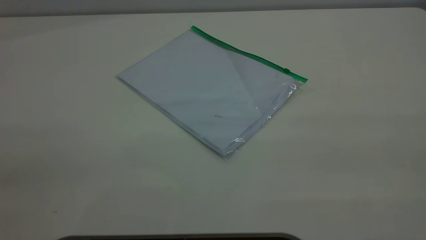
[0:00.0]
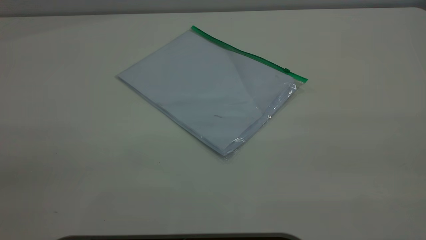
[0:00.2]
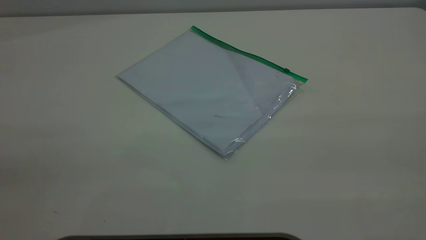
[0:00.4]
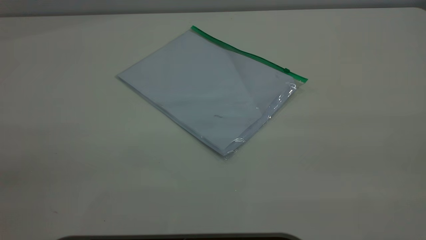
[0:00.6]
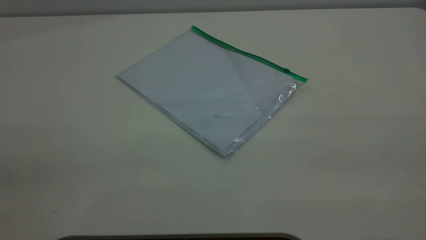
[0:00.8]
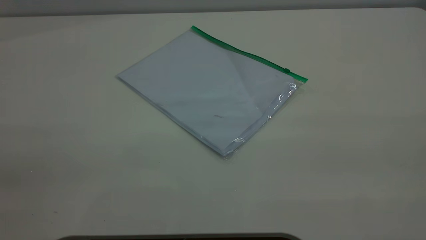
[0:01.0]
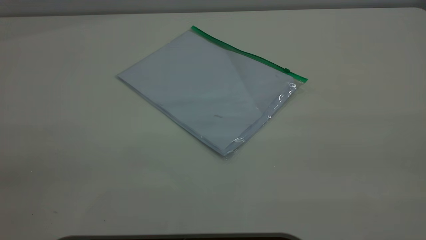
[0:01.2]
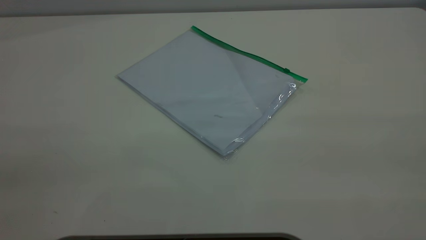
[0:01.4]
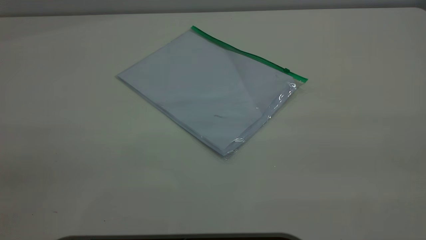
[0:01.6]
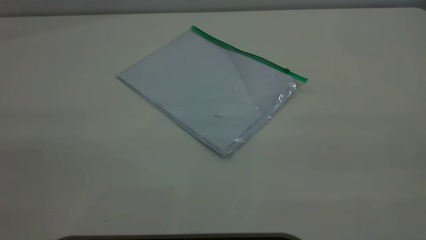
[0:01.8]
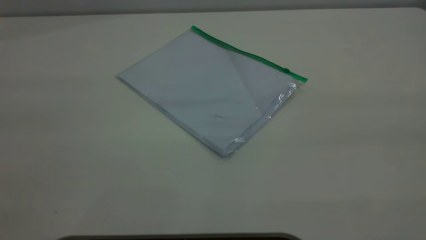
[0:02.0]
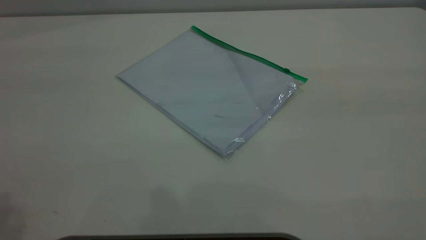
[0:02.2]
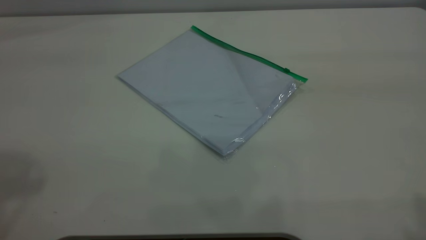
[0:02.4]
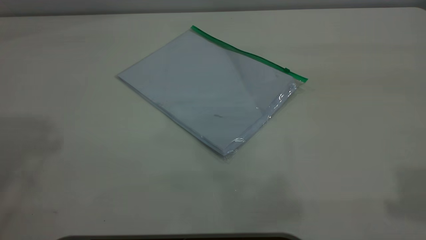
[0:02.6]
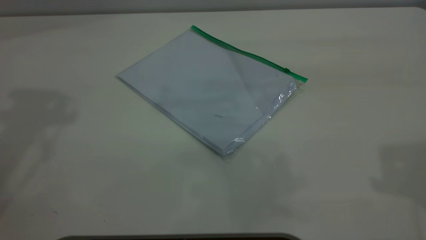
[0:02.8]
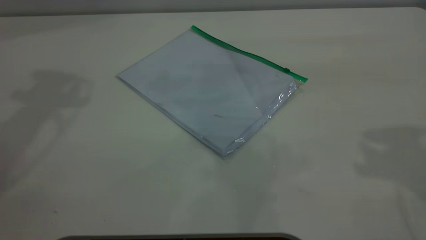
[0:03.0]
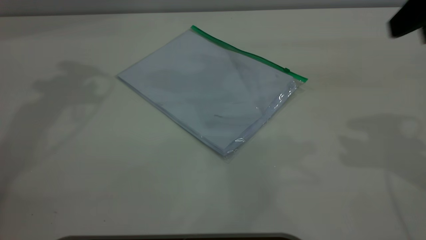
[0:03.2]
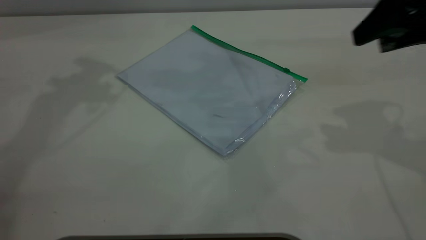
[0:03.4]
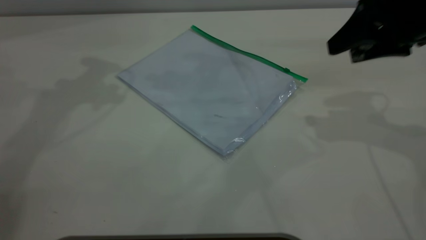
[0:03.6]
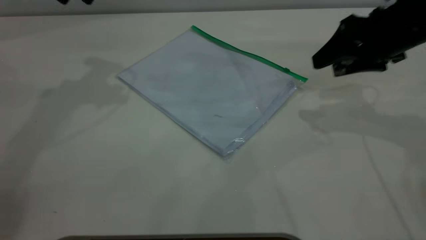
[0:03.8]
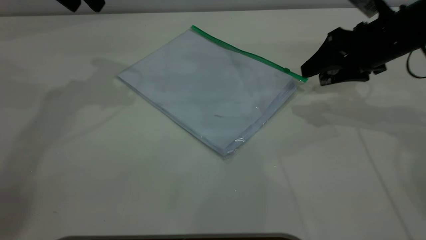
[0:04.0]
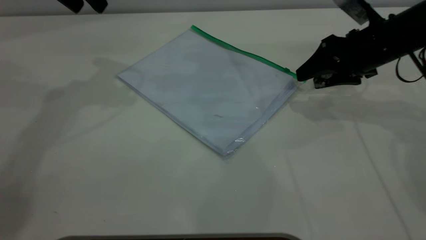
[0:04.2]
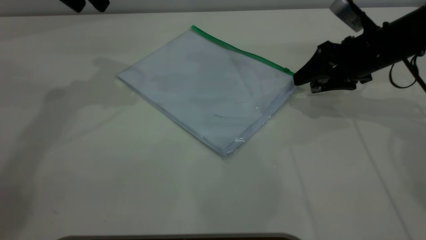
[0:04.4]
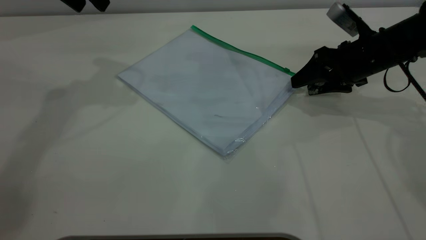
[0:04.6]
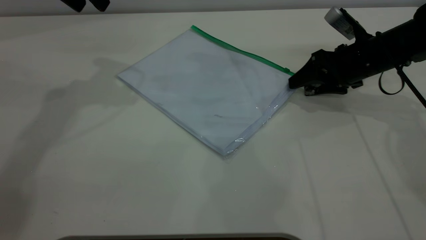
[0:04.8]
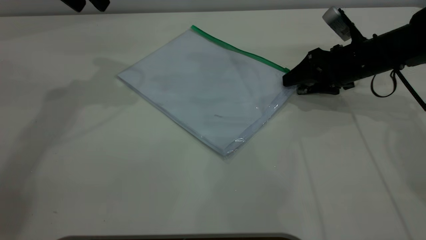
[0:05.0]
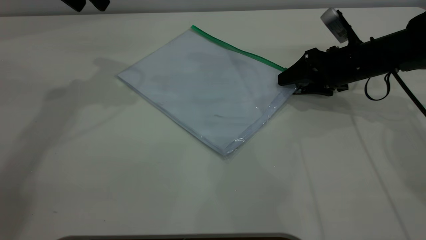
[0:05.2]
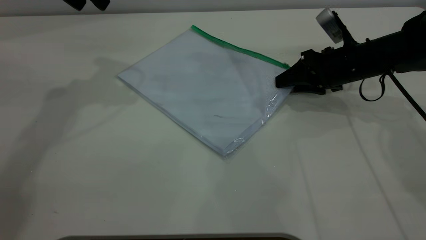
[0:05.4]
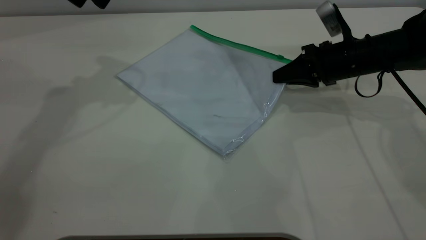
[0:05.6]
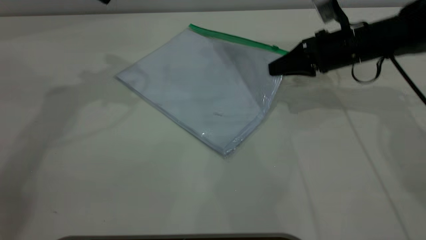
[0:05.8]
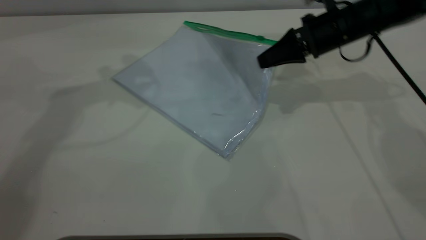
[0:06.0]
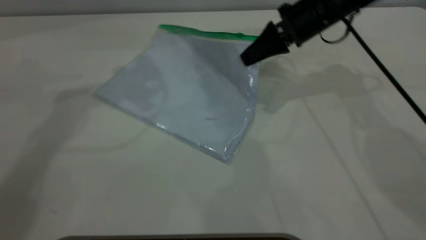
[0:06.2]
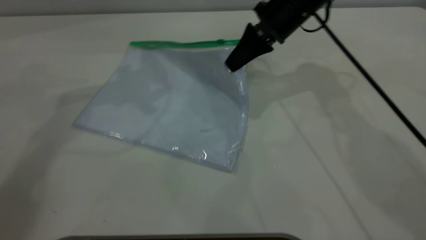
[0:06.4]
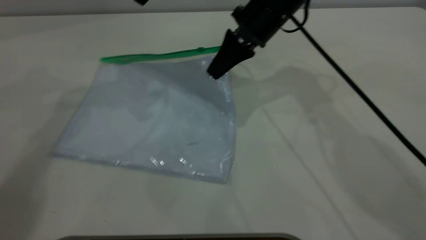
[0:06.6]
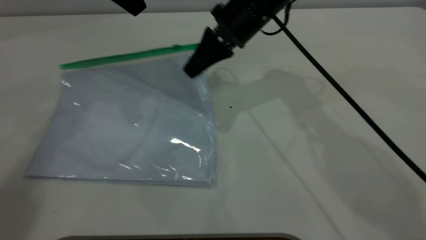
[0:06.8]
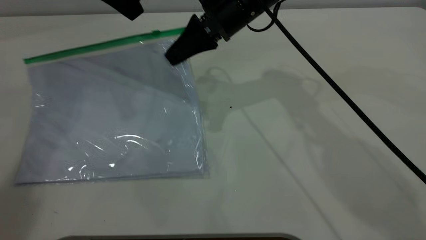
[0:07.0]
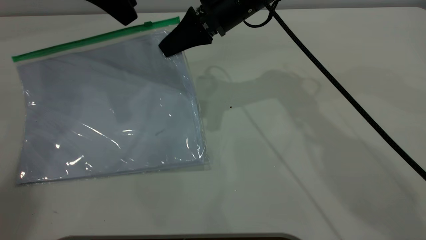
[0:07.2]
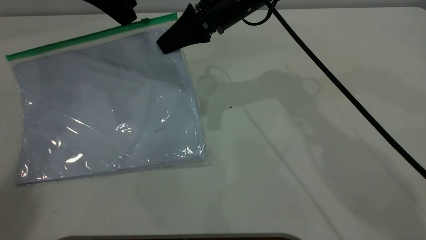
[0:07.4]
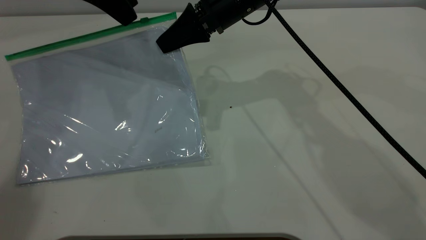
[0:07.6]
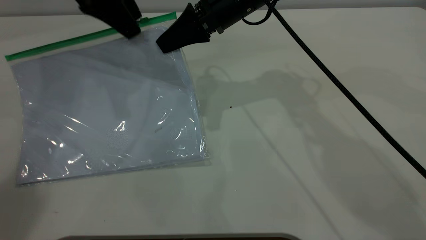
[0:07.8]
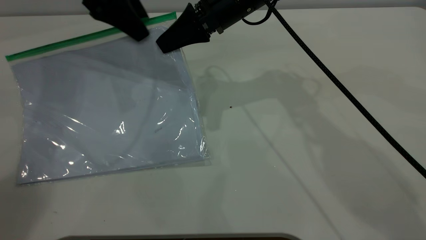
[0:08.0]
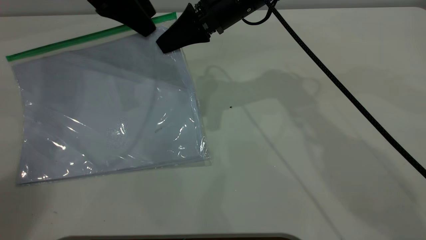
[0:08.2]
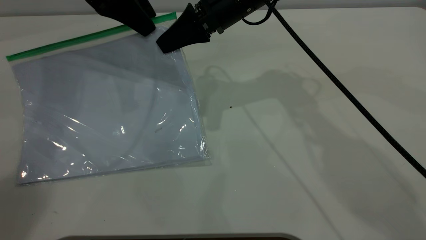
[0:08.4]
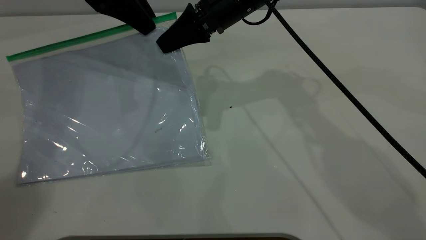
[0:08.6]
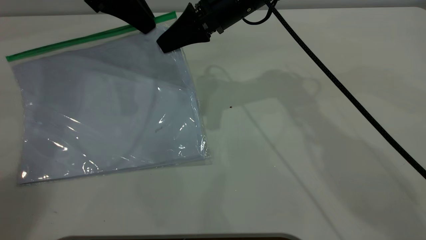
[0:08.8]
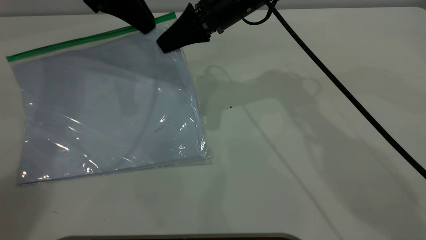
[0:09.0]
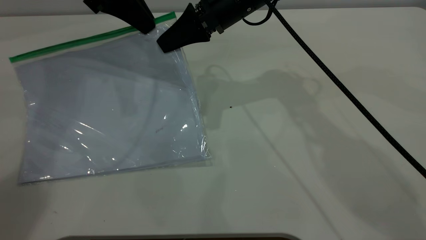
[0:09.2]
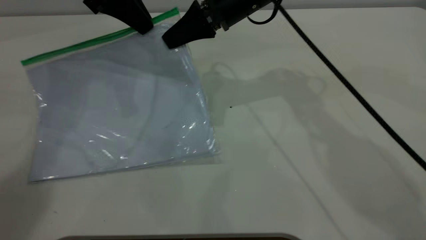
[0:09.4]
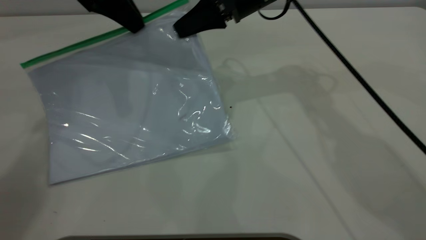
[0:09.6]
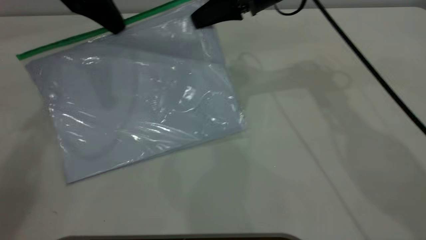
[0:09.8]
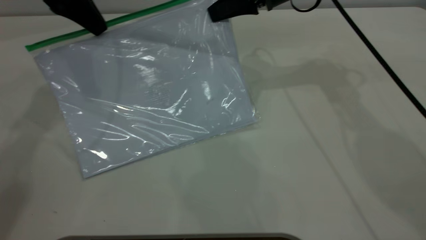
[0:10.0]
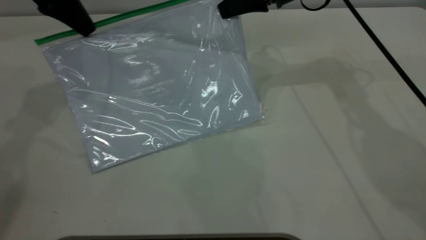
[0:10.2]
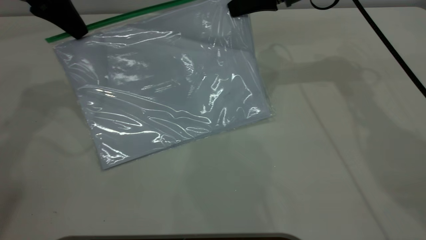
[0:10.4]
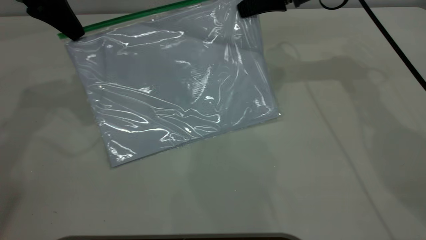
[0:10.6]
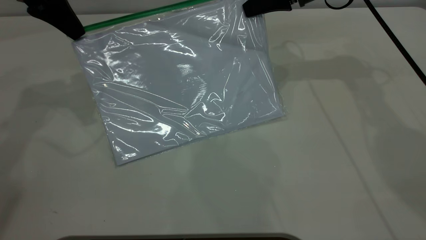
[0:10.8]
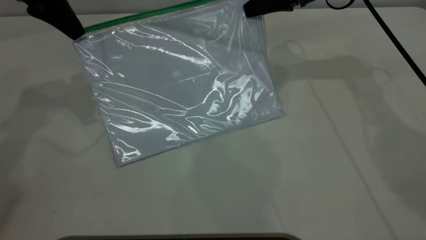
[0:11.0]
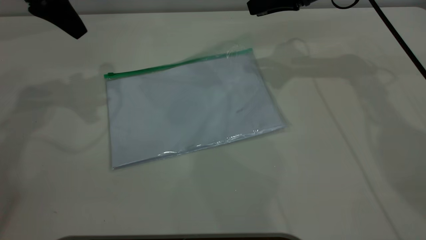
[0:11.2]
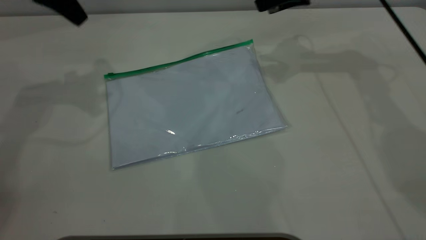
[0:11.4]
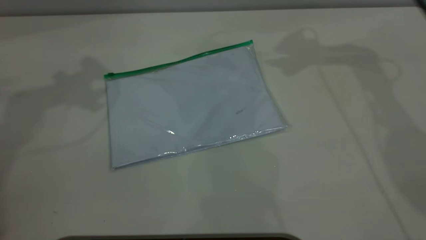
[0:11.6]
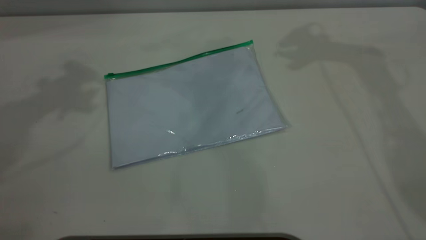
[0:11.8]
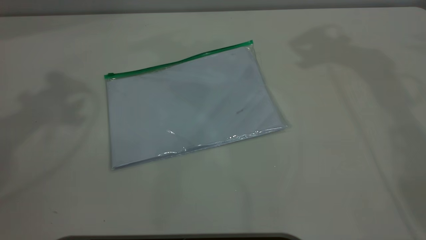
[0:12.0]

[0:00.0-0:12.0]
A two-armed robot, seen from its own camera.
Step, 0:00.0 to 0:05.4: Pick up the transparent plastic bag with the right gripper.
Step, 0:05.6 to 0:11.0: Pulling up the zipper on the transparent plastic bag with the left gripper to close it.
0:00.0 to 0:01.6: Both grippers stay about where they are.
0:03.0 to 0:04.4: The right gripper goes approximately 25 cm downward and forward.
0:04.4 to 0:06.0: The right gripper heads to the left, covering approximately 5 cm, and closes.
0:06.0 to 0:07.6: The right gripper travels to the left and upward by approximately 15 cm.
0:07.6 to 0:09.0: The left gripper closes its fingers.
0:09.0 to 0:10.4: The right gripper moves to the right and forward, about 15 cm; the left gripper shifts about 10 cm to the left.
0:10.4 to 0:12.0: Both grippers move upward, approximately 25 cm. The right gripper opens, while the left gripper opens up.
